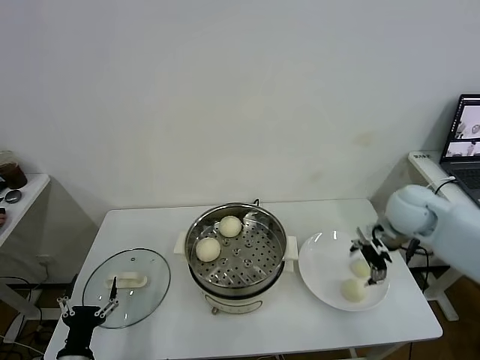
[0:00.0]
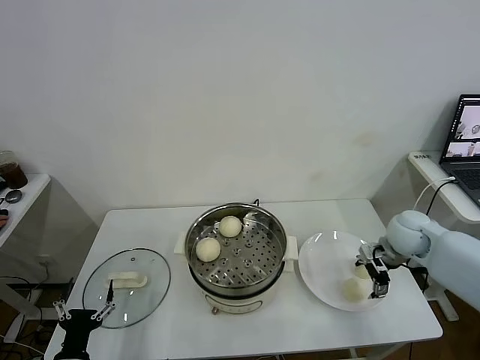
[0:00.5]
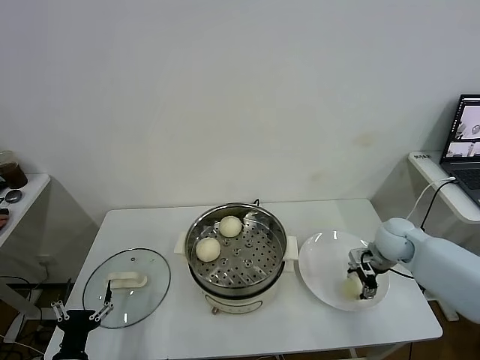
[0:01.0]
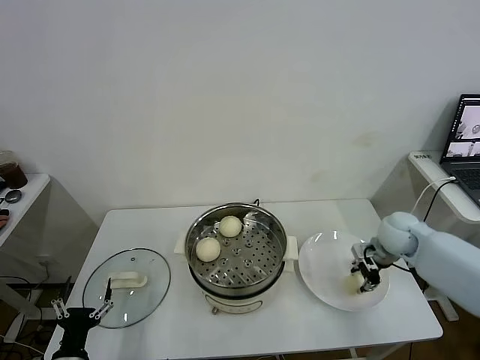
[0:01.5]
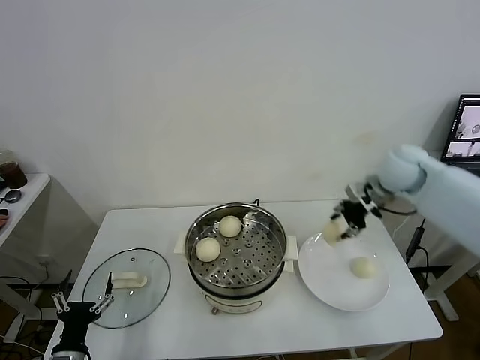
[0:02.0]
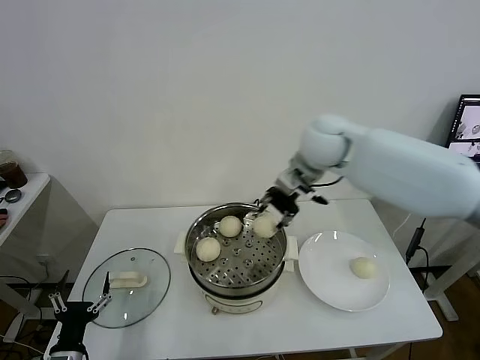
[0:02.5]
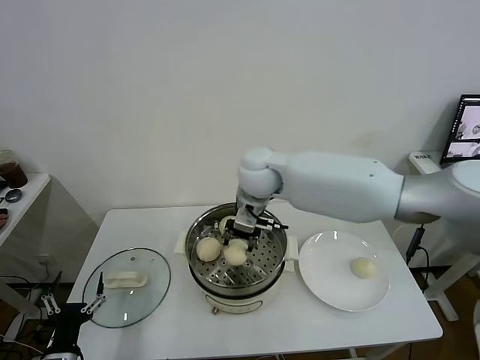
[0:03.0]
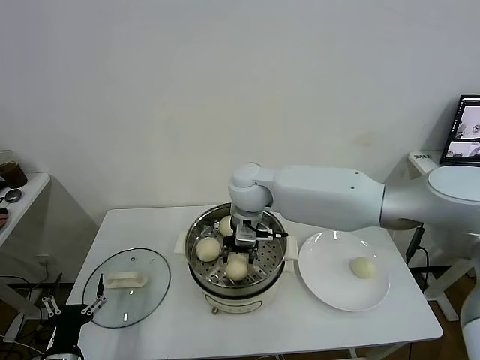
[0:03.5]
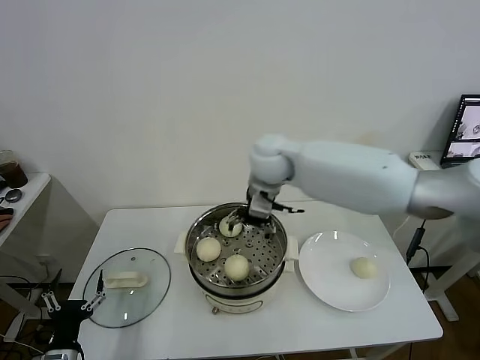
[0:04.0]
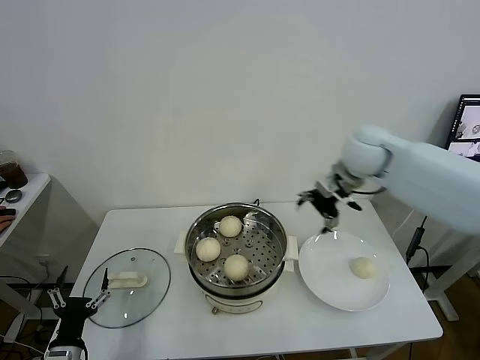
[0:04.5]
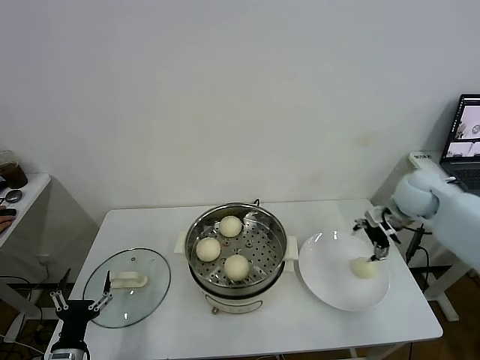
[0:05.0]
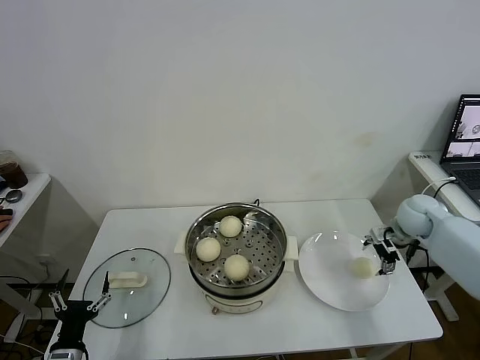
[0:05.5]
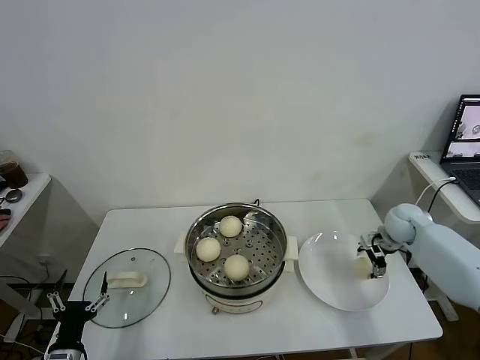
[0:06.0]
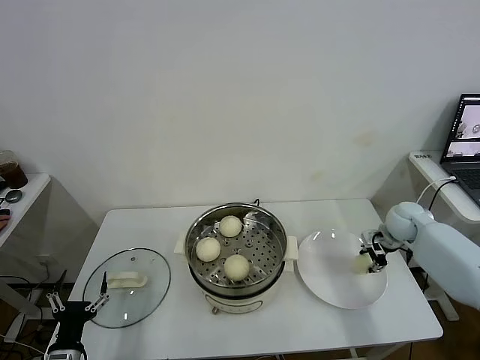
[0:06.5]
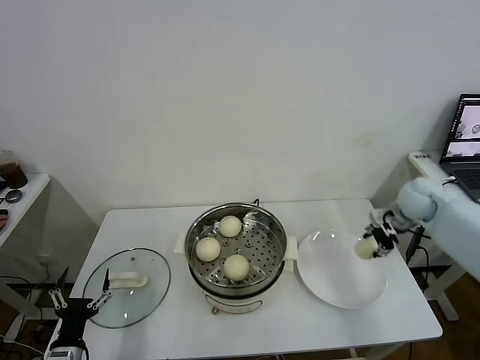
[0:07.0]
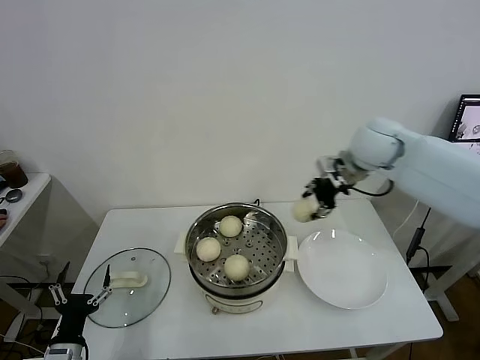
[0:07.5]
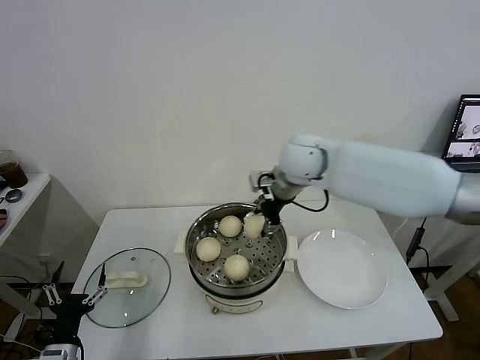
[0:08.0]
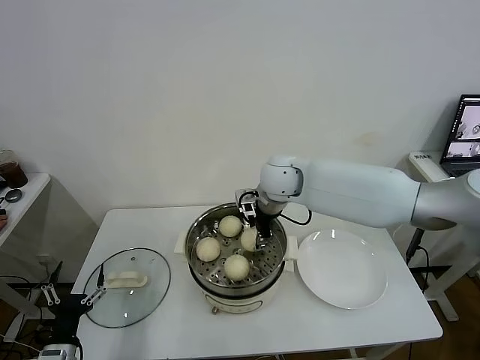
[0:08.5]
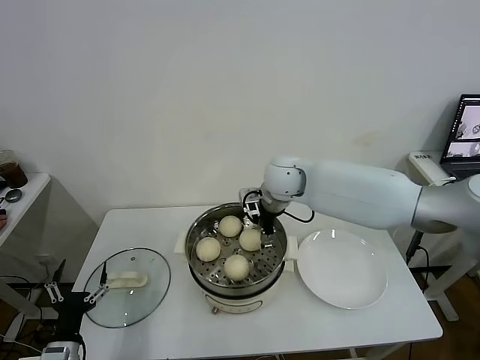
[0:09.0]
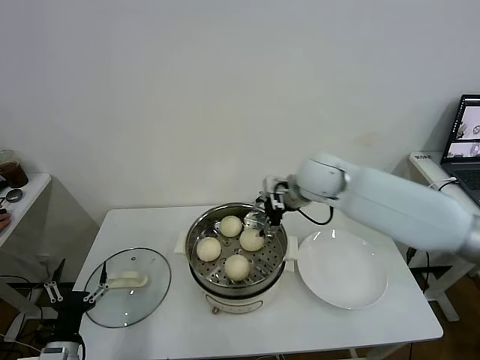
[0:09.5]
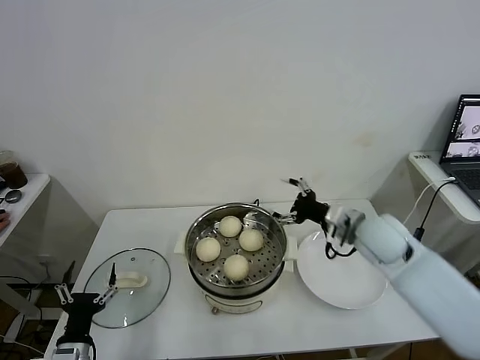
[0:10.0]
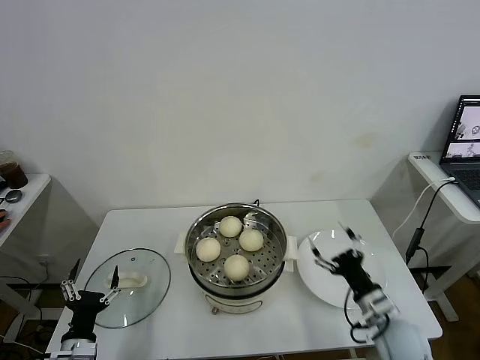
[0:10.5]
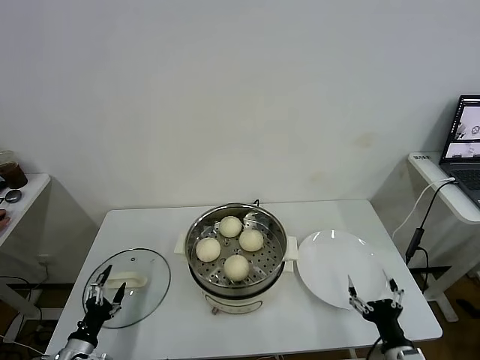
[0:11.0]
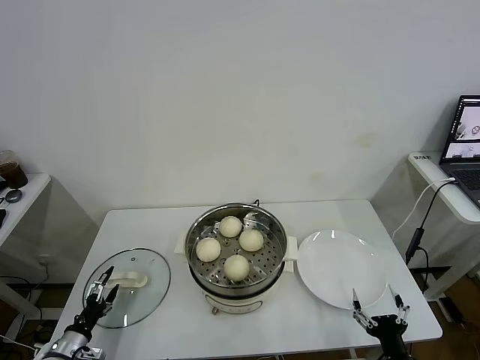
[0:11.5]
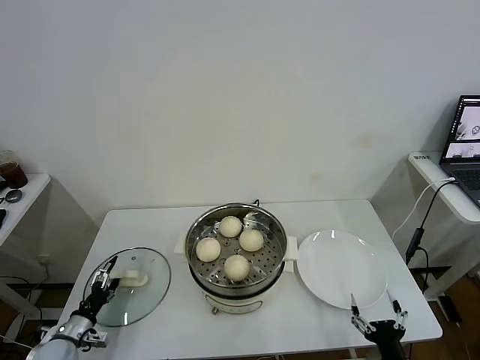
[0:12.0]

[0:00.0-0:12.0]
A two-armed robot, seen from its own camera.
Task of the whole recording: take steamed baozi put them in steamer.
Step, 0:01.5 to 0:03.5: Place the baozi on the steamer with right gripper.
Step, 0:04.0 to 0:06.5: Grasp the baozi in the plate with right gripper.
Step, 0:07.0 to 0:09.0: Place the baozi on the steamer with right gripper.
0:00.0 to 0:02.0: The right gripper shifts approximately 10 cm upward and forward, and closes its fingers.
0:02.0 to 0:04.0: The right gripper moves to the left, roughly 25 cm, and opens up.
0:04.0 to 0:06.0: The right gripper shifts roughly 40 cm to the right and downward.
0:06.0 to 0:08.0: The right gripper heads to the left and upward, covering some 35 cm, and closes its fingers.
0:08.0 to 0:10.0: The right gripper goes about 25 cm to the right, backward and downward, and opens.
0:10.0 to 0:12.0: The right gripper goes approximately 35 cm backward and downward. Meanwhile the left gripper goes some 15 cm to the left, forward and downward.

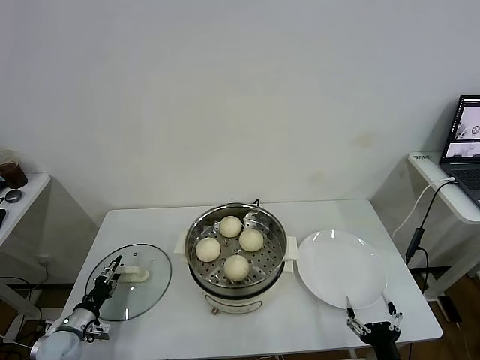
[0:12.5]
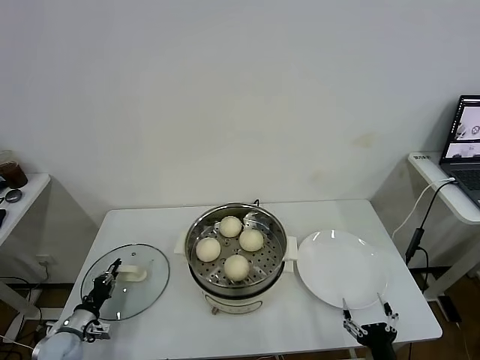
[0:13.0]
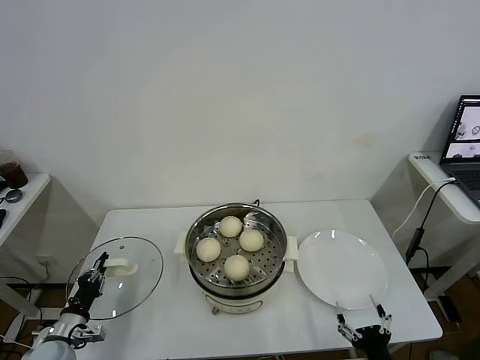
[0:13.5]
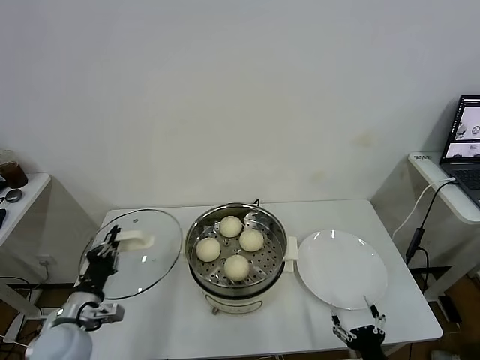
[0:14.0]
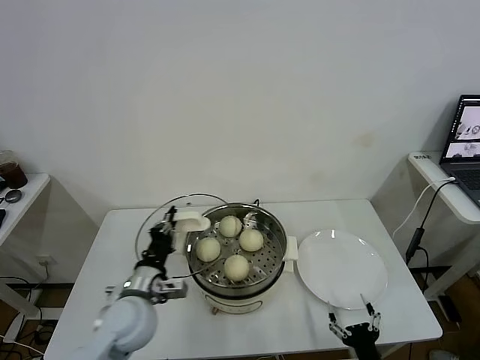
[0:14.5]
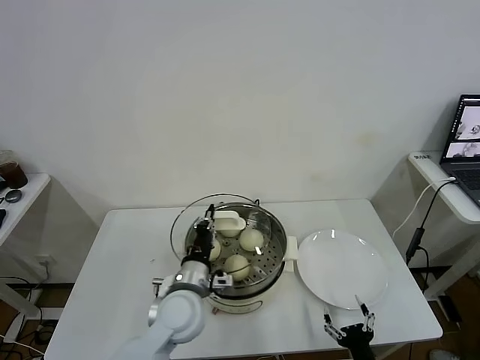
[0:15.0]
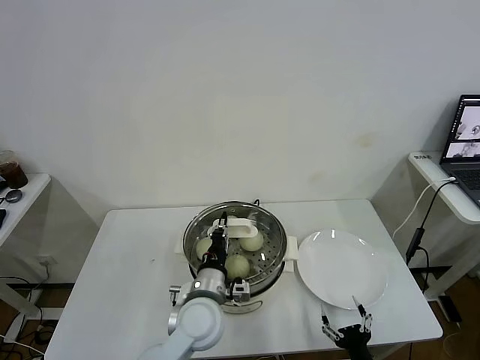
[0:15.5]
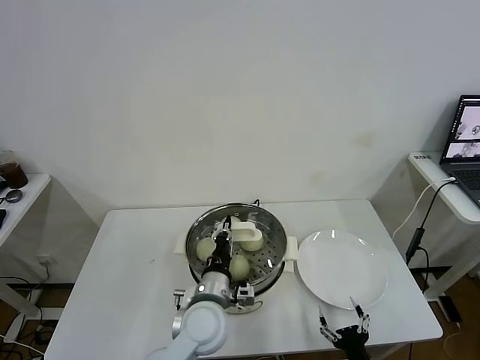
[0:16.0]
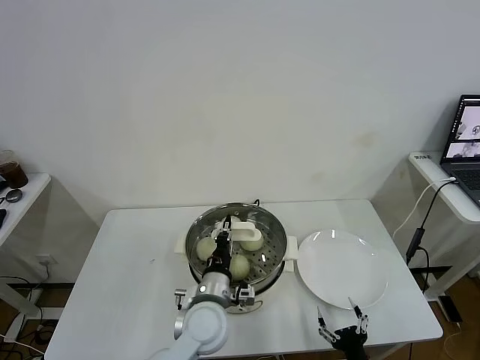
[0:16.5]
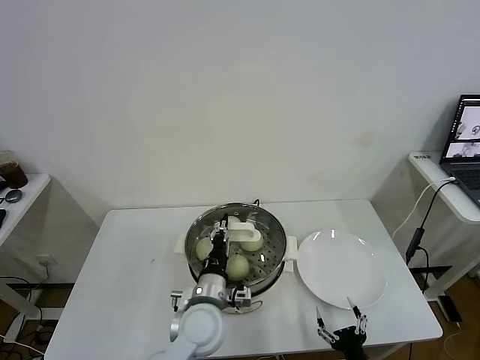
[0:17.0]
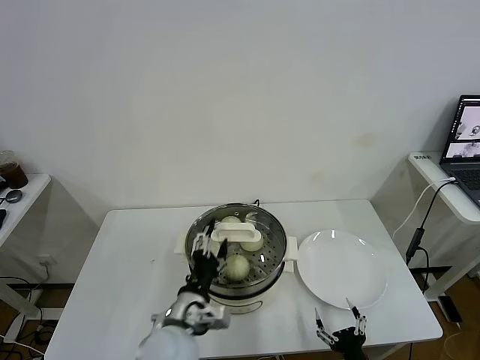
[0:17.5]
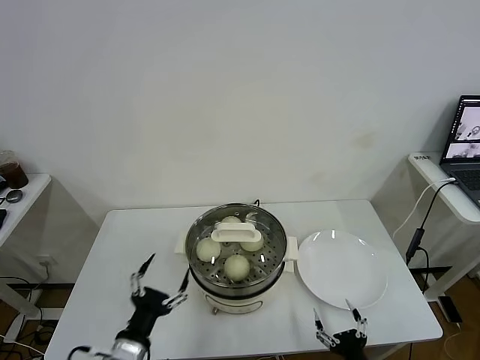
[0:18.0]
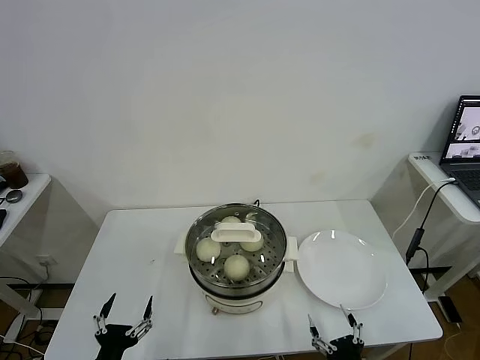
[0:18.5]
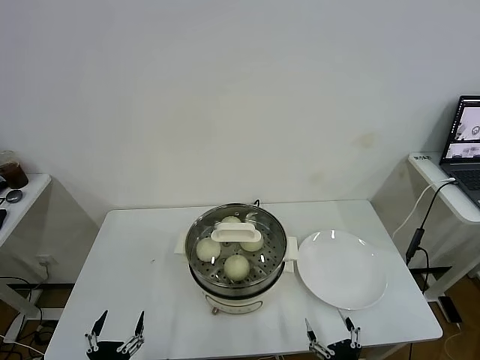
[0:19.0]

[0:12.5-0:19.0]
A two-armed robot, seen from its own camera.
Task of the whole recording: take steamed baozi put them in steamer.
Step, 0:13.0 to 0:17.0: Place the pot lid on the steamer with left gripper.
0:12.5 to 0:14.5: The left gripper moves to the right and upward, some 30 cm, and closes up.
0:14.5 to 0:17.0: The left gripper is displaced to the right by some 15 cm.
0:17.0 to 0:19.0: The right gripper moves approximately 5 cm, while the left gripper moves to the left and backward, about 30 cm, and opens its fingers.

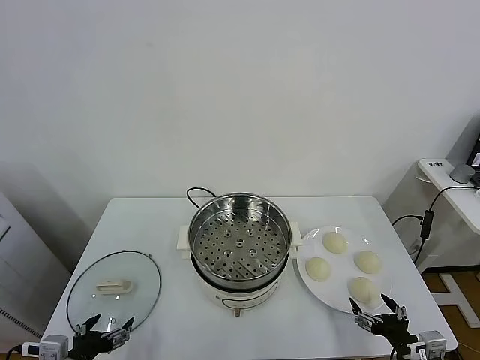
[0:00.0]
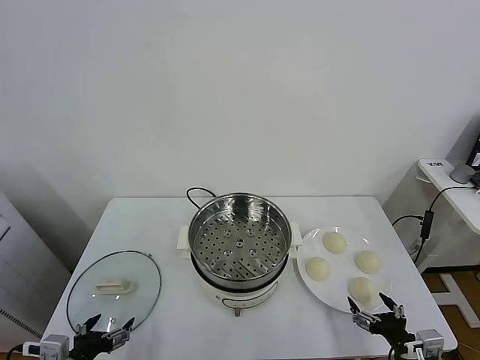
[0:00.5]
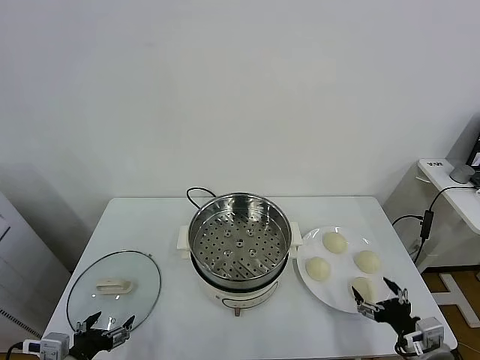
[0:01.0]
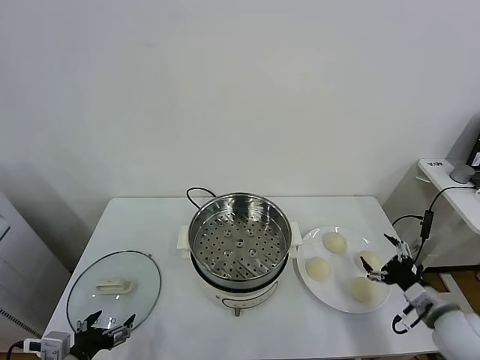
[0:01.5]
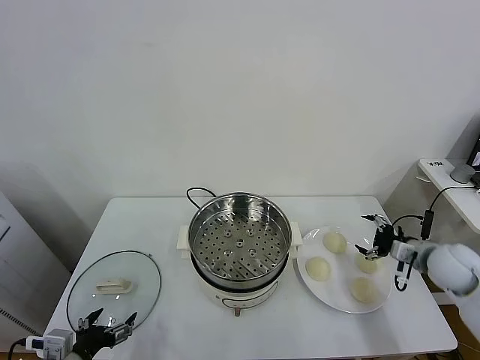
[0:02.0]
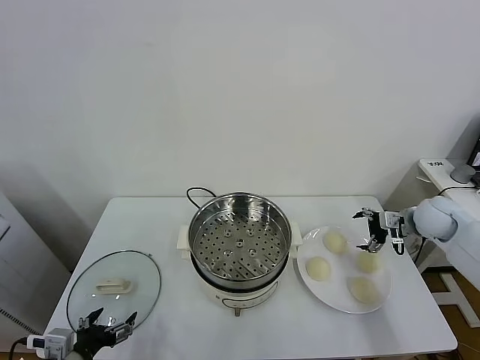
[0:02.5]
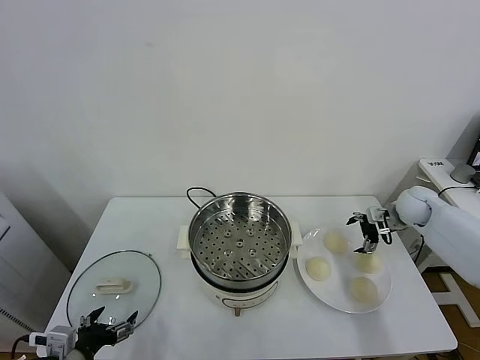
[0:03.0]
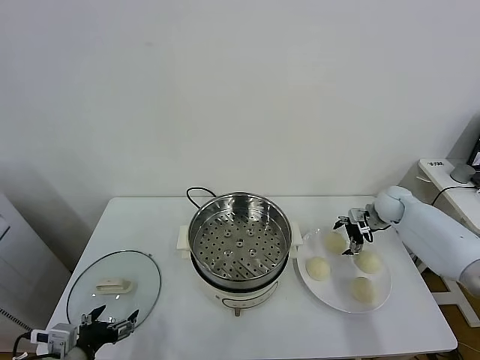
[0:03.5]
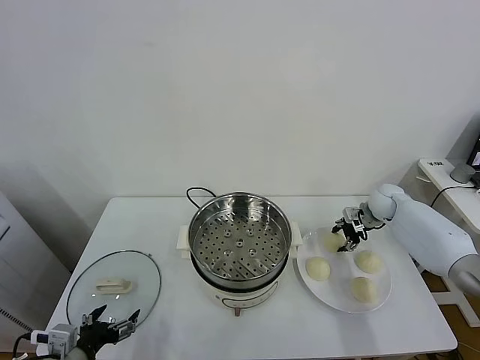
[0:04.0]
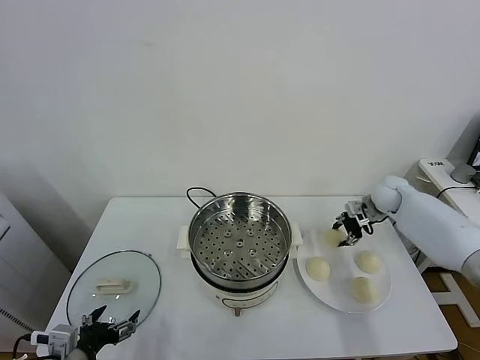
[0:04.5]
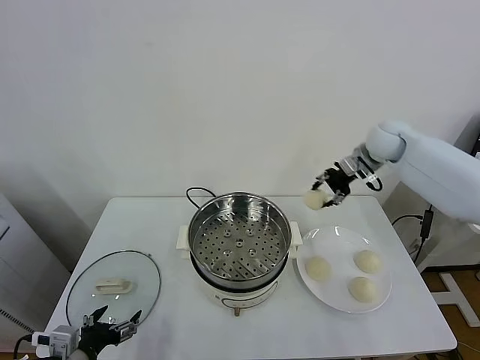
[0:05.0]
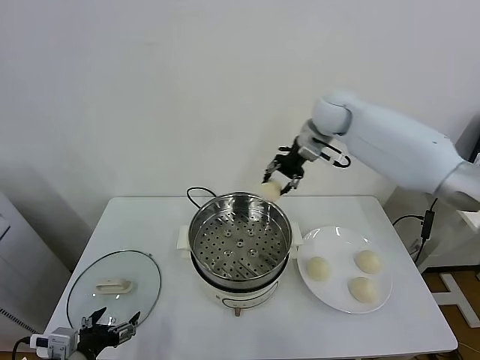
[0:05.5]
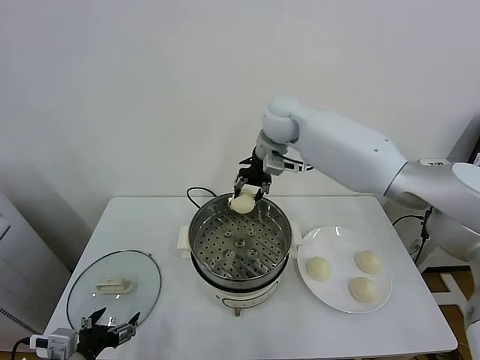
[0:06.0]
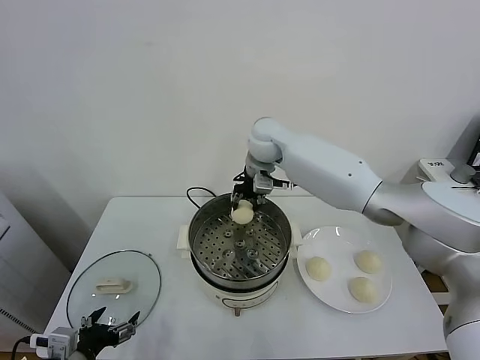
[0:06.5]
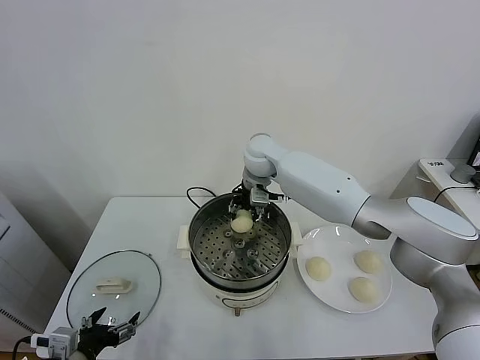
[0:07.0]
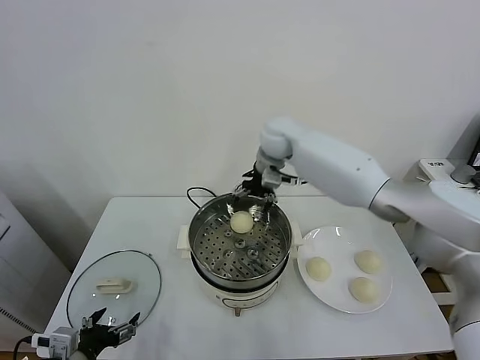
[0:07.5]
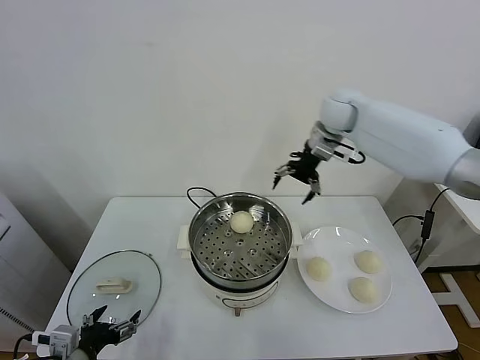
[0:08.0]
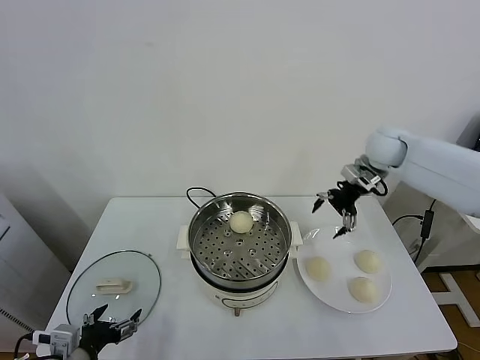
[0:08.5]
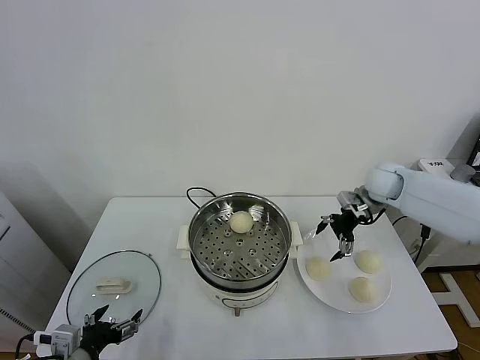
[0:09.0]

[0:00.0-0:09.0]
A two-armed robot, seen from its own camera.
Task of the whole recording: take steamed baozi put them in steamer.
Step, 0:00.0 to 0:04.0: Grasp the baozi in the plate with right gripper.
Step, 0:04.5 to 0:07.0: Place the baozi on the steamer with right gripper.
0:02.0 to 0:04.5: The right gripper heads forward, covering approximately 20 cm, and closes.
0:04.5 to 0:07.0: The right gripper moves to the left, approximately 35 cm, and opens up.
0:07.0 to 0:09.0: The right gripper goes some 30 cm to the right.
